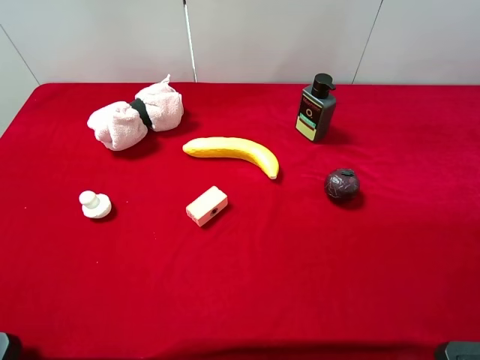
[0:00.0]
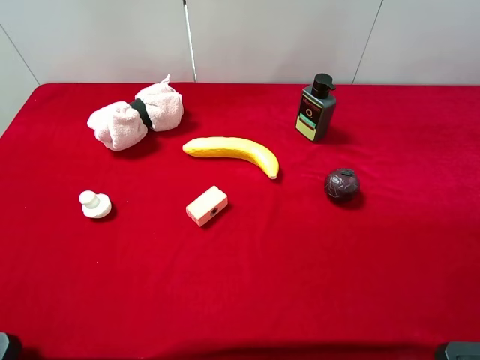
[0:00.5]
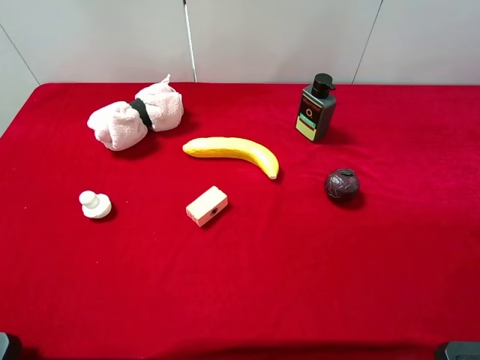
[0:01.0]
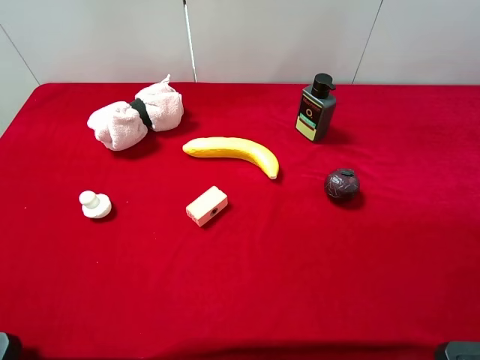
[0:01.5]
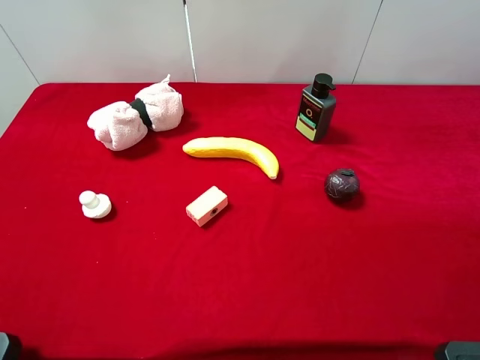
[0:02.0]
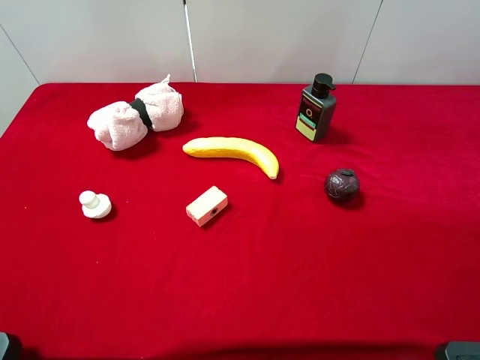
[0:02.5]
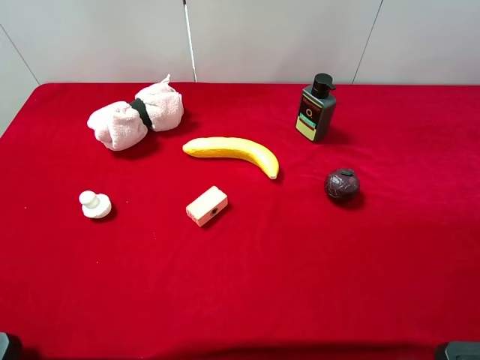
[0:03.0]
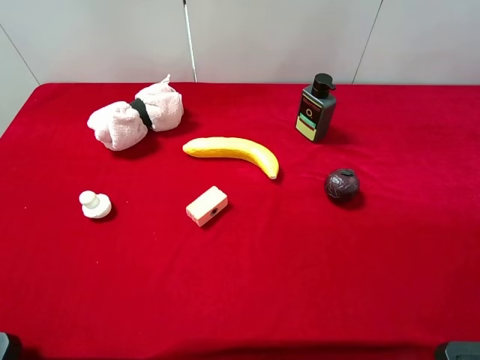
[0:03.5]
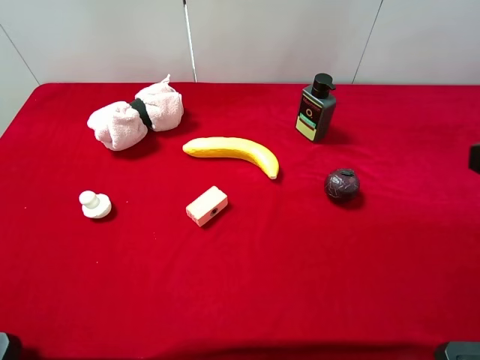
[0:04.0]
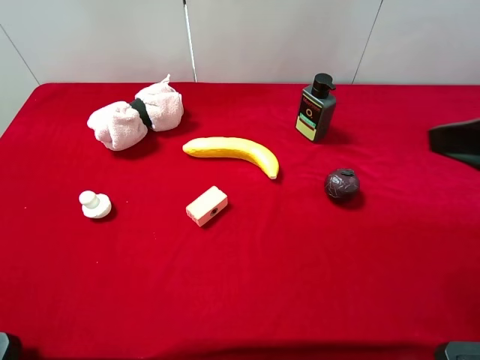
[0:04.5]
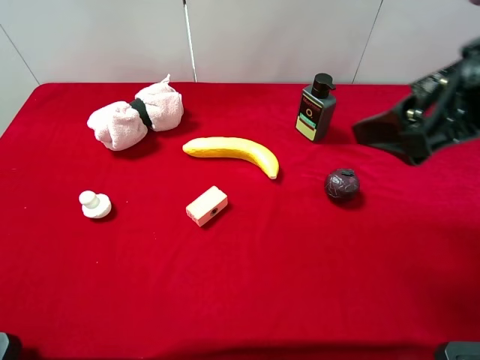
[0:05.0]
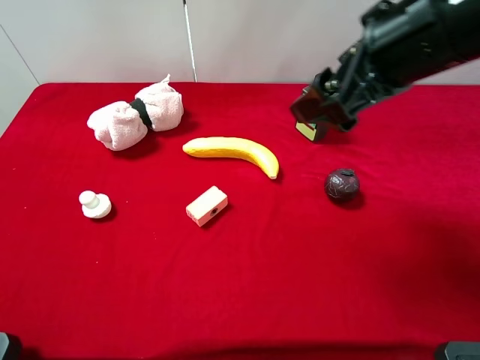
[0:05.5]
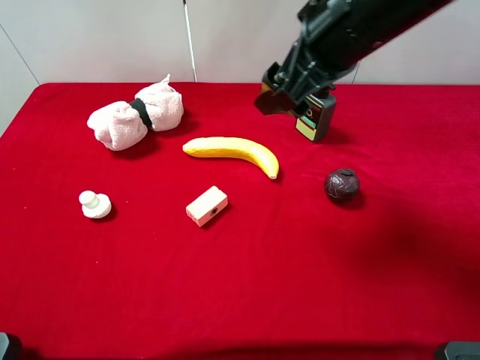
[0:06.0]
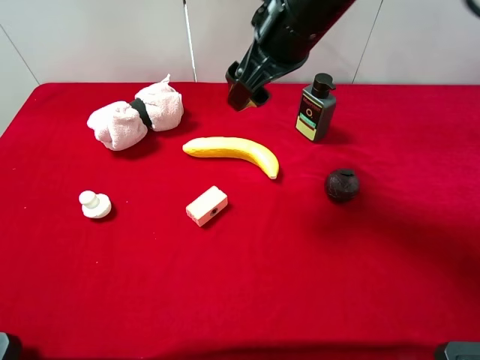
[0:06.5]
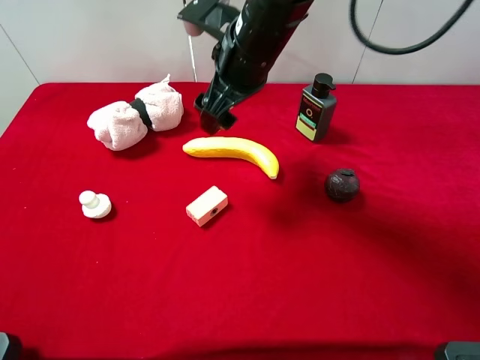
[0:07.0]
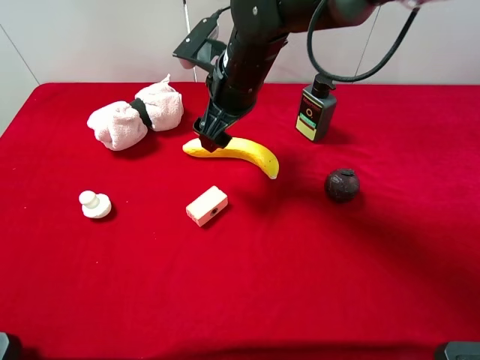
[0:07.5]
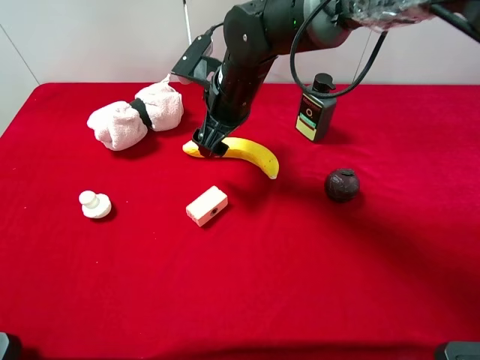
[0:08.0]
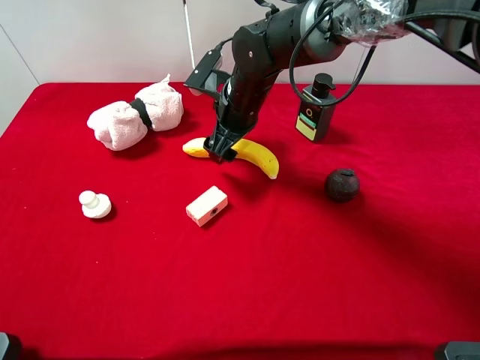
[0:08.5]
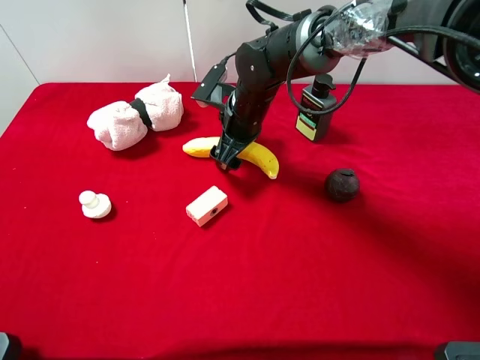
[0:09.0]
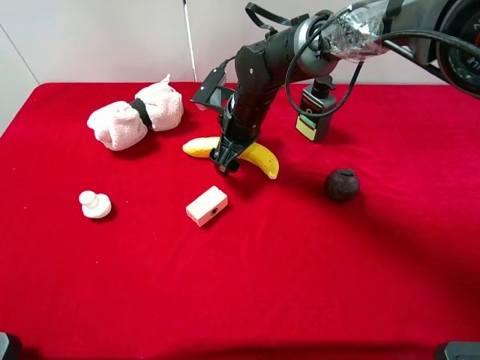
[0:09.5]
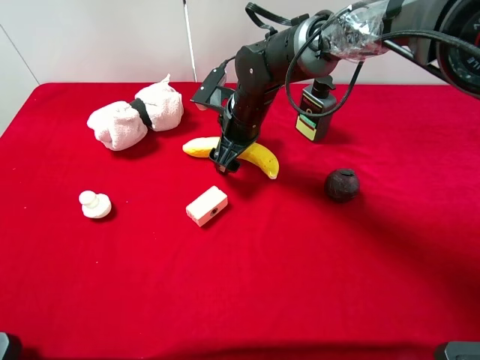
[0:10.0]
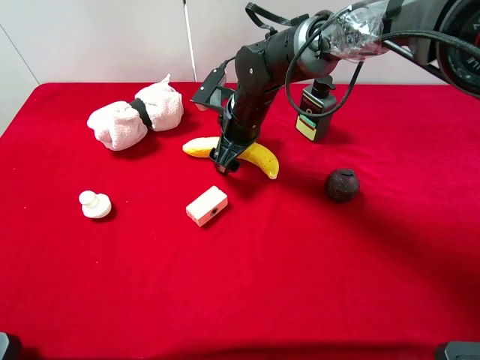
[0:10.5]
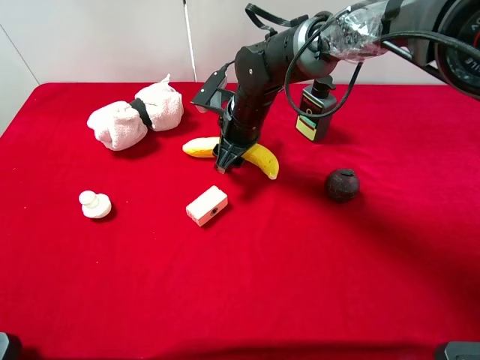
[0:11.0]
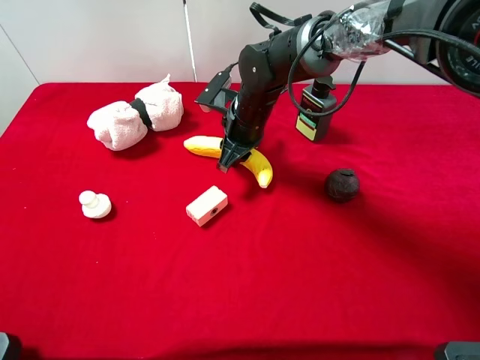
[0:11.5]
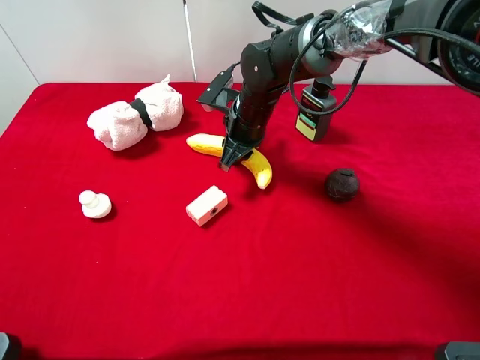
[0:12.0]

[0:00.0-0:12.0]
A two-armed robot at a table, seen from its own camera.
Task of the whole recording: the gripper move the object.
Step, 0:00.0 to 0:11.5: Grasp the banana with the right gripper.
0:00.0 to 0:02.0: The two grippers keep their place.
0:04.0 to 0:06.0: The right gripper goes roughly 25 cm to the left and forward.
0:06.0 to 0:08.0: The right gripper moves downward, to the left and forward, approximately 20 cm.
0:08.0 to 0:10.0: The right gripper travels downward by approximately 5 cm.
0:10.0 to 0:12.0: The right gripper closes up.

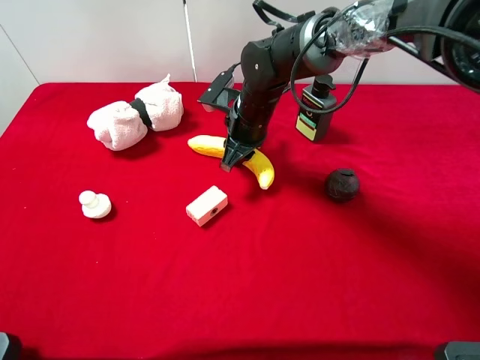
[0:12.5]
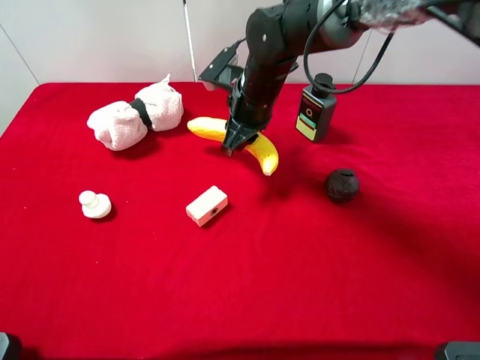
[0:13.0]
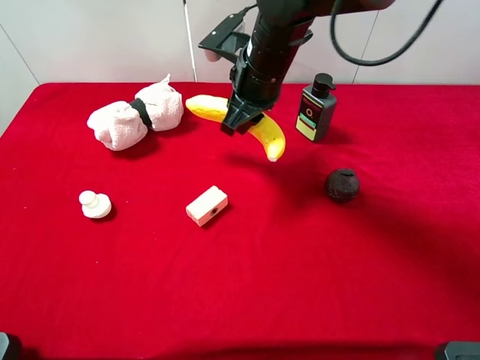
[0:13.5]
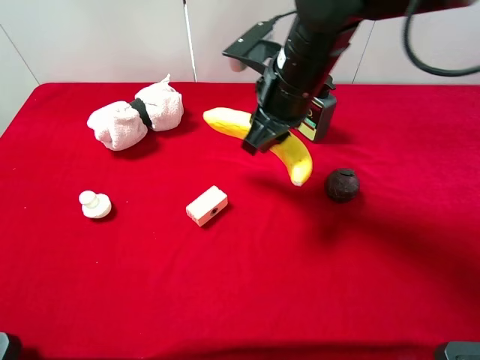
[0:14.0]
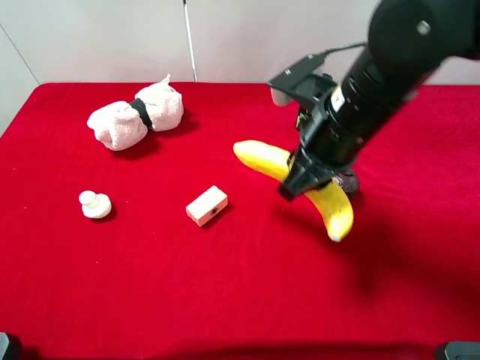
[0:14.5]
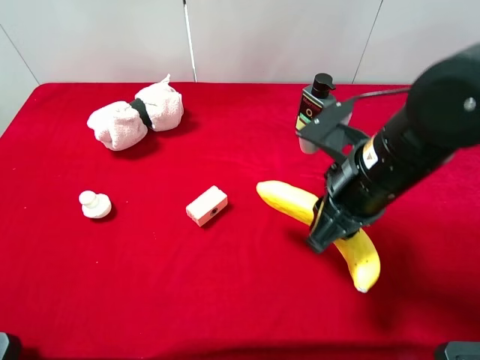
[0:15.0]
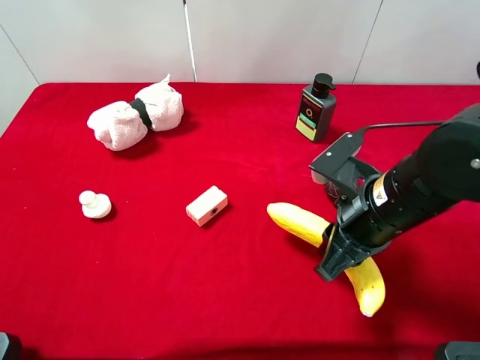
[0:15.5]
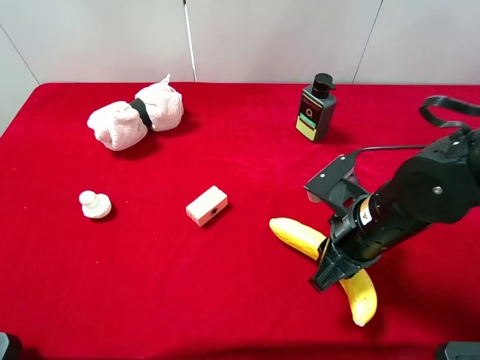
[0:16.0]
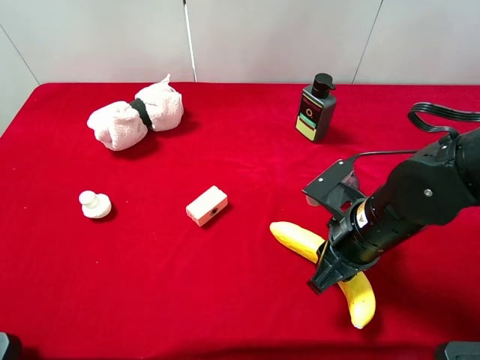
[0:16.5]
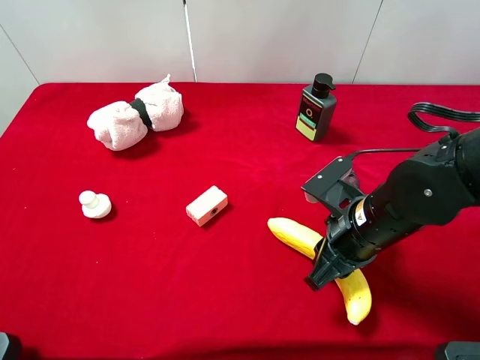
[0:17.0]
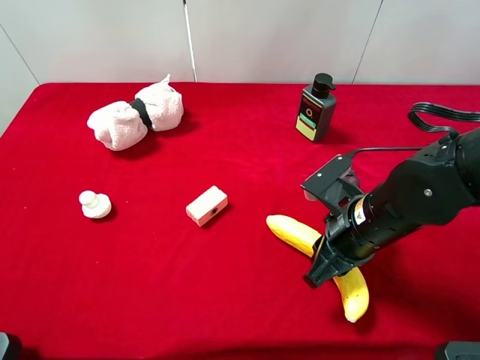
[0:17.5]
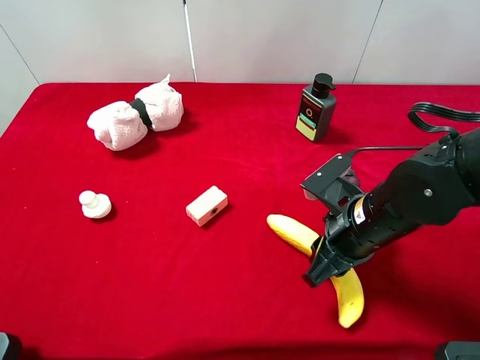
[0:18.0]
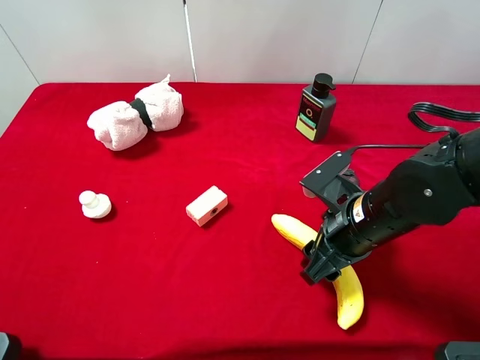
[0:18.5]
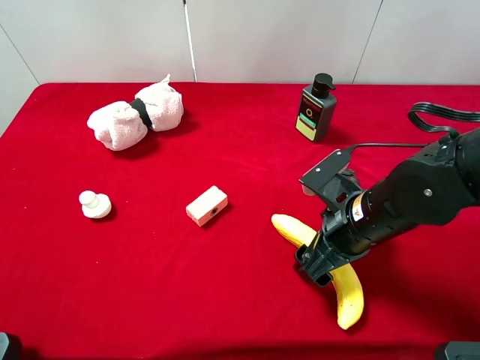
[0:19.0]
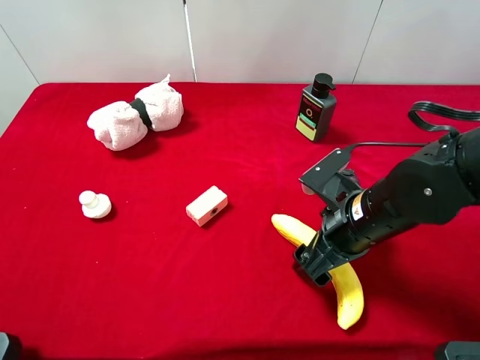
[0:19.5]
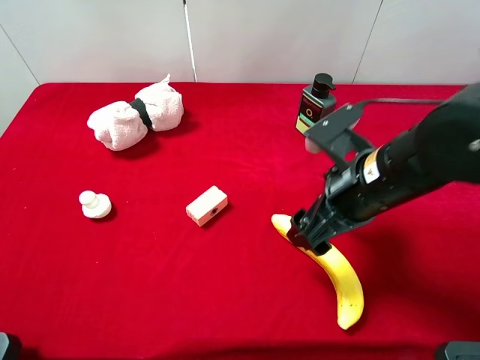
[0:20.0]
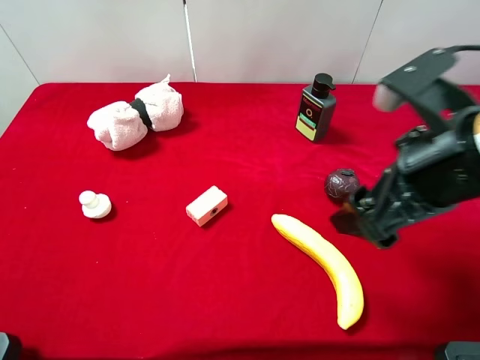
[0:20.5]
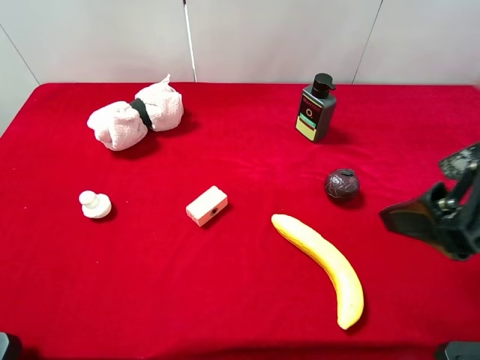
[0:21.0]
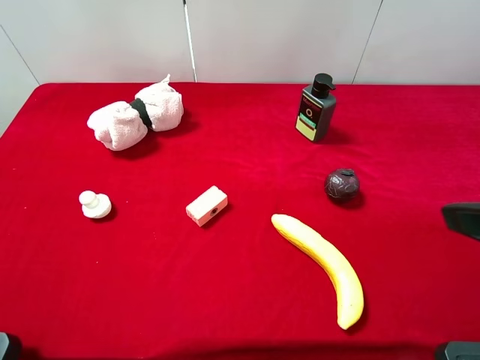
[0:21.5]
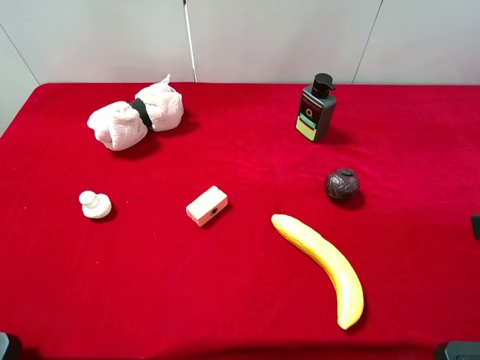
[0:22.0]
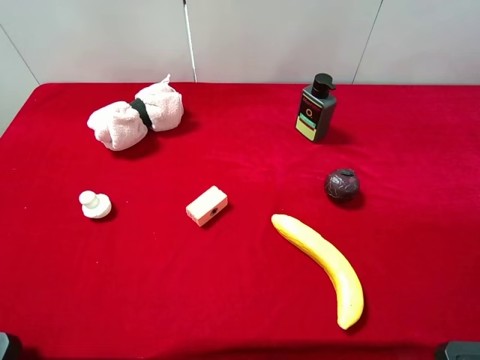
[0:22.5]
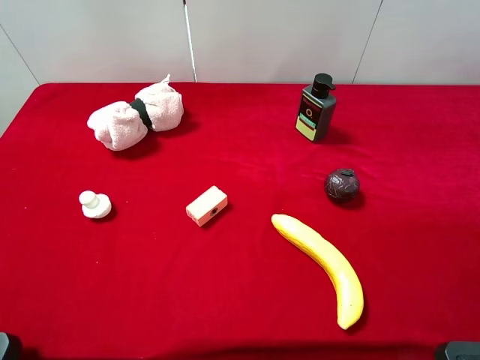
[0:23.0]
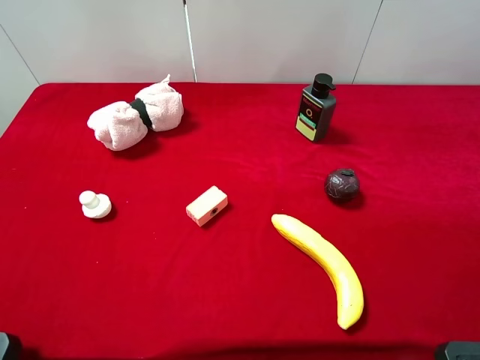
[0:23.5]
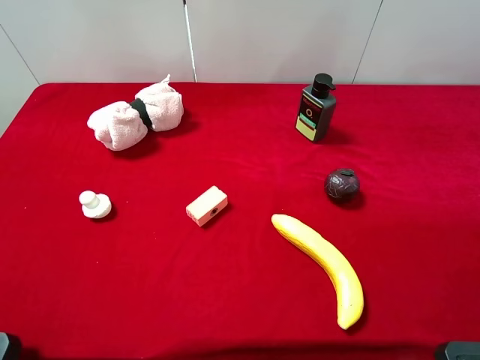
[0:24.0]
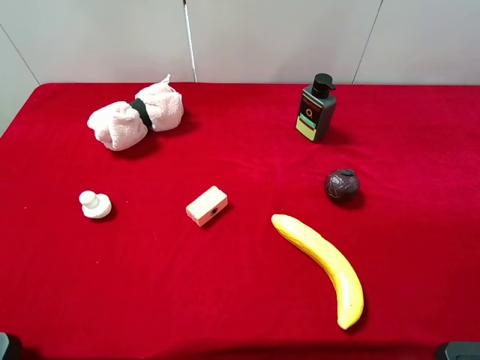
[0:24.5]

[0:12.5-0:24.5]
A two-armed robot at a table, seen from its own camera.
Task of the whole recording: the gripper move the object.
Step, 0:12.5 to 0:20.0: Place the banana on the table with the right gripper.
0:12.5 to 0:14.5: The right gripper heads backward, upward and to the right, covering some 20 cm.
0:14.5 to 0:16.5: The right gripper is displaced downward, backward and to the right by roughly 15 cm.
0:16.5 to 0:18.5: The right gripper opens.
0:18.5 to 0:20.5: The right gripper goes roughly 15 cm upward, and opens.
0:20.5 to 0:22.5: The right gripper is displaced to the right and backward by some 15 cm.

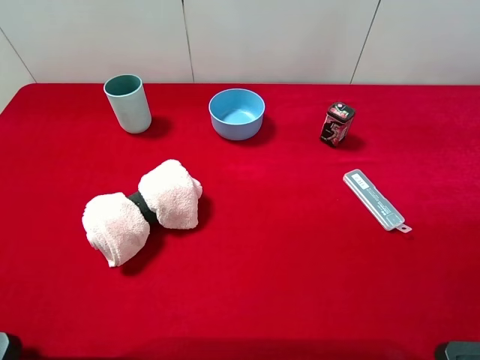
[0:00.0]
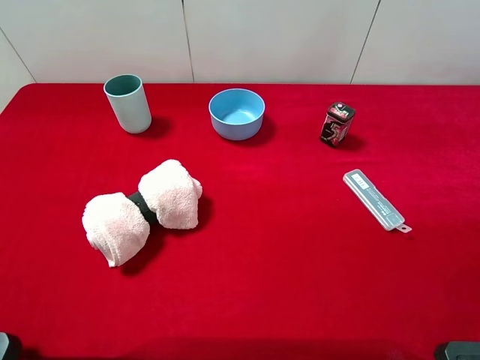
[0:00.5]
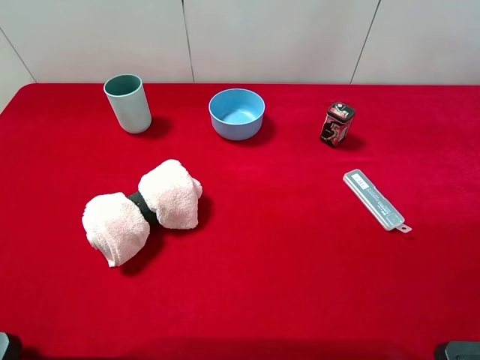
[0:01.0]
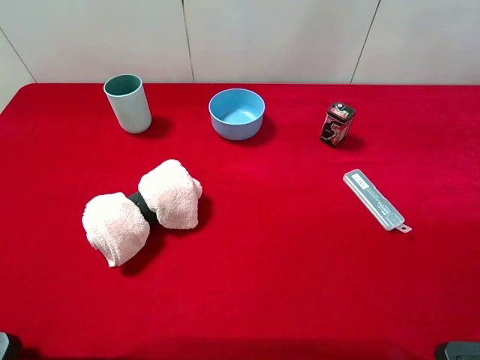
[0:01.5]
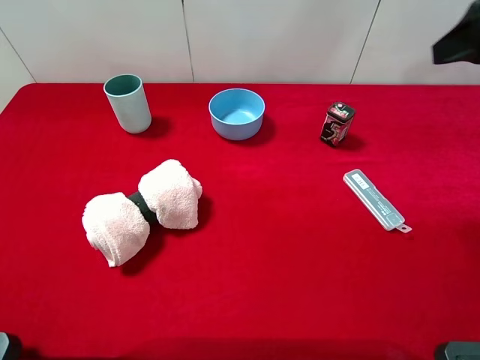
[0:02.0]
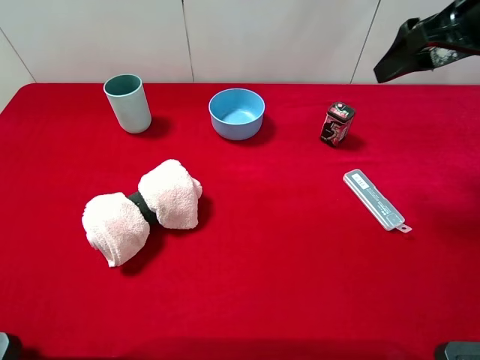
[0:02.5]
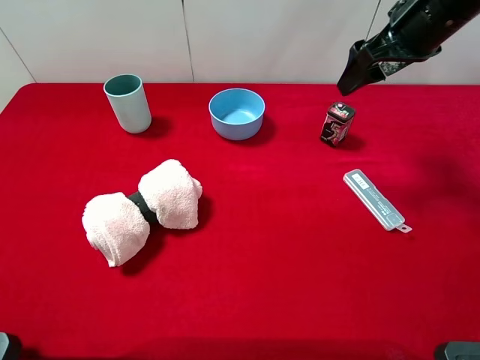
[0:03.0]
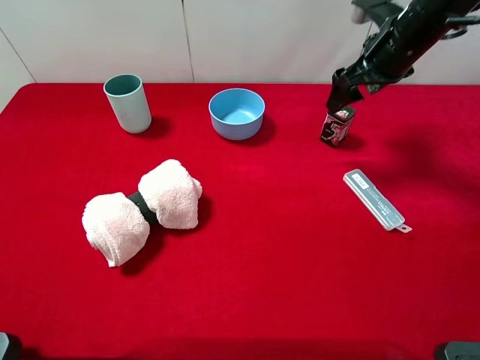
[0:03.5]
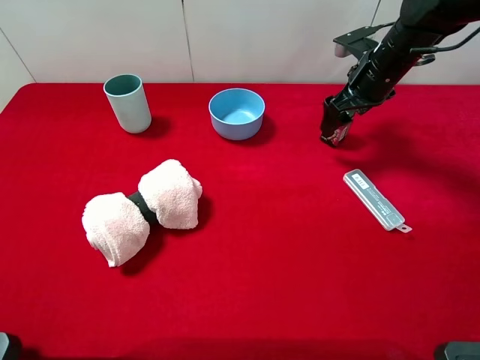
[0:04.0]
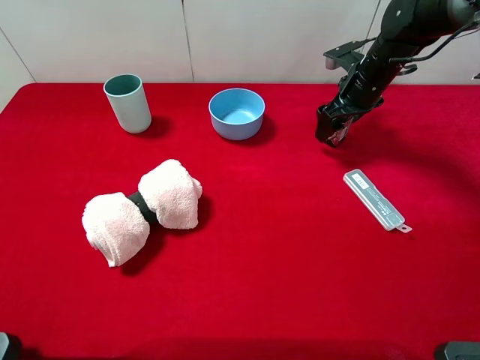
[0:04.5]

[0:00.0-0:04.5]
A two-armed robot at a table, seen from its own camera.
Task of the whole recording: the gripper move the object.
0:00.0 to 0:02.0: The right gripper goes roughly 25 cm forward.
0:02.0 to 0:04.5: The right gripper is displaced downward and forward by roughly 30 cm.
